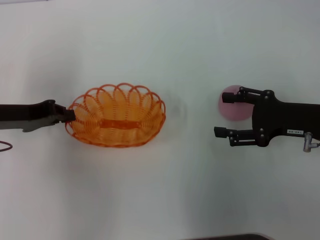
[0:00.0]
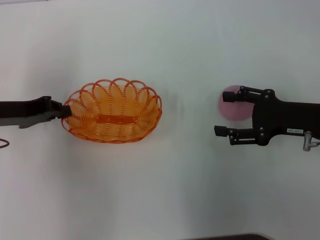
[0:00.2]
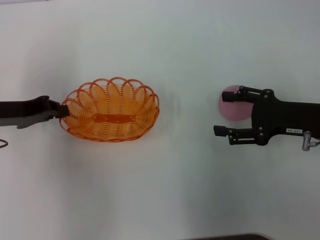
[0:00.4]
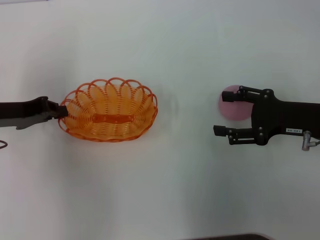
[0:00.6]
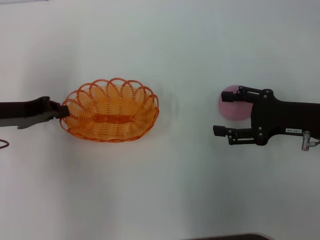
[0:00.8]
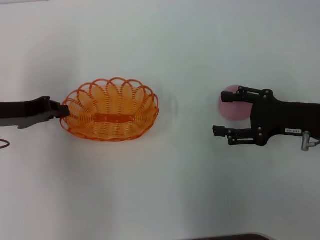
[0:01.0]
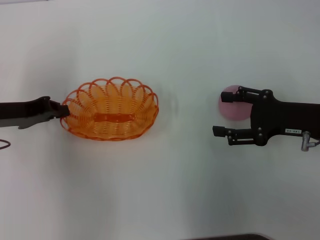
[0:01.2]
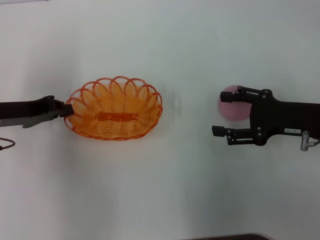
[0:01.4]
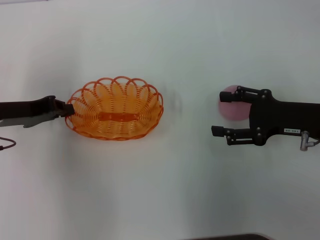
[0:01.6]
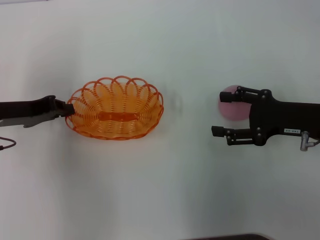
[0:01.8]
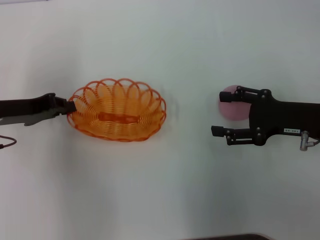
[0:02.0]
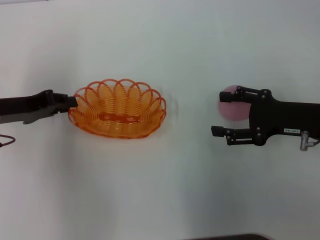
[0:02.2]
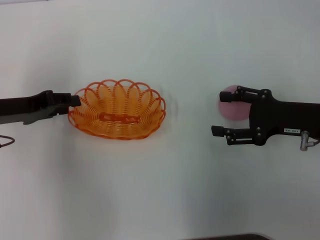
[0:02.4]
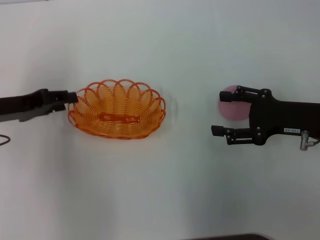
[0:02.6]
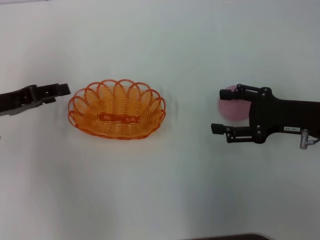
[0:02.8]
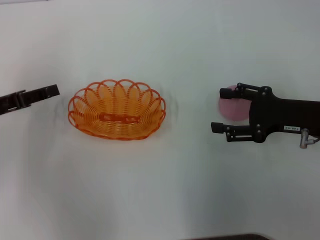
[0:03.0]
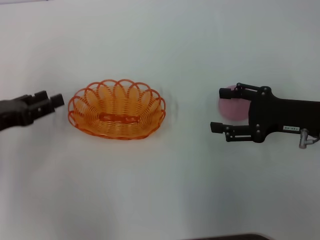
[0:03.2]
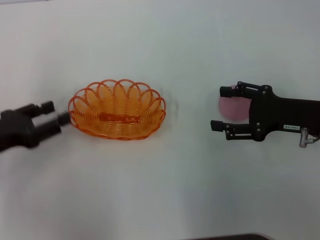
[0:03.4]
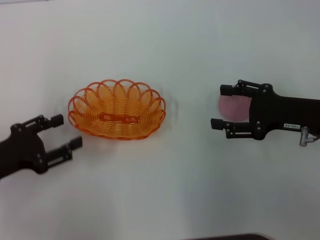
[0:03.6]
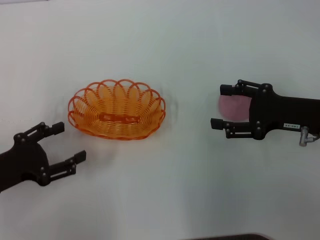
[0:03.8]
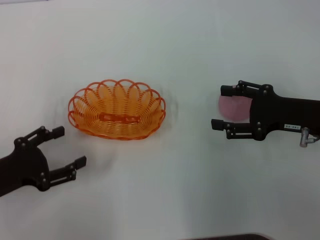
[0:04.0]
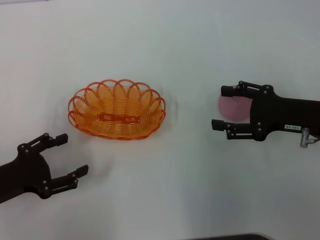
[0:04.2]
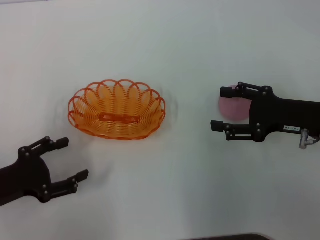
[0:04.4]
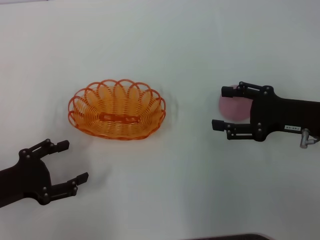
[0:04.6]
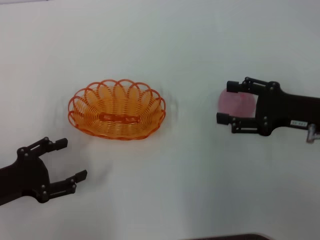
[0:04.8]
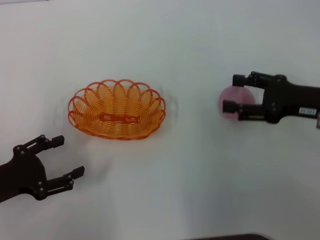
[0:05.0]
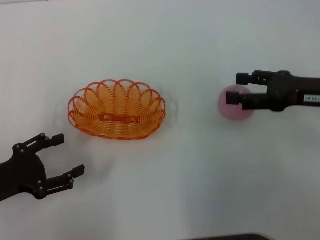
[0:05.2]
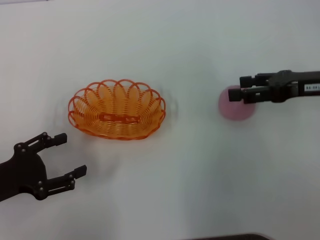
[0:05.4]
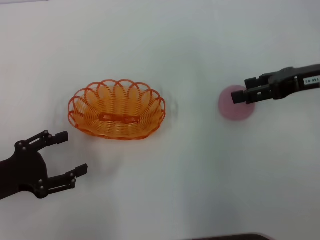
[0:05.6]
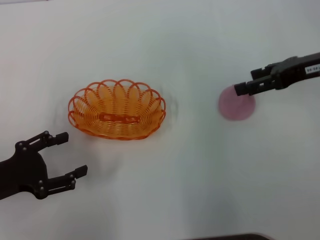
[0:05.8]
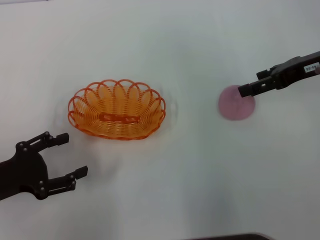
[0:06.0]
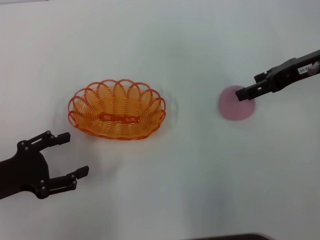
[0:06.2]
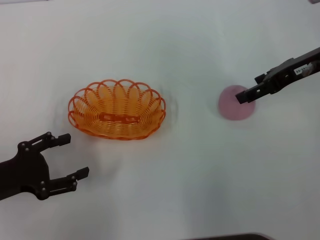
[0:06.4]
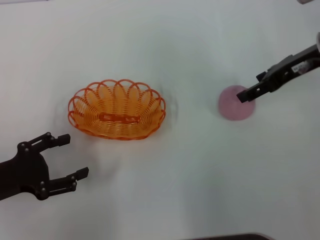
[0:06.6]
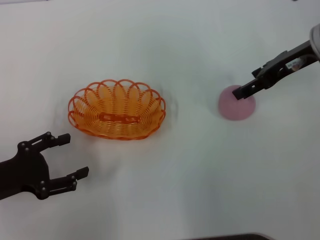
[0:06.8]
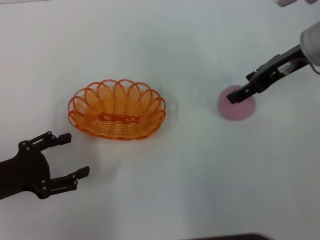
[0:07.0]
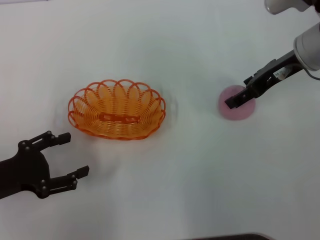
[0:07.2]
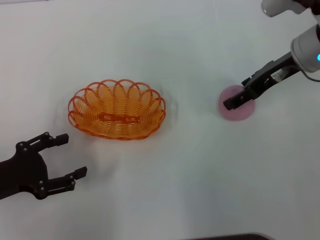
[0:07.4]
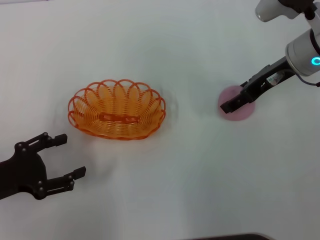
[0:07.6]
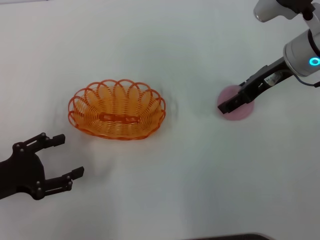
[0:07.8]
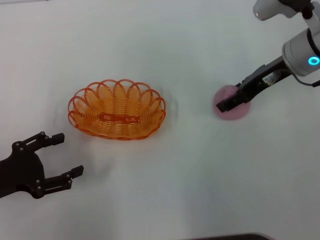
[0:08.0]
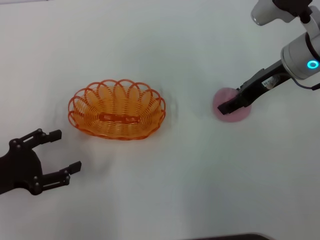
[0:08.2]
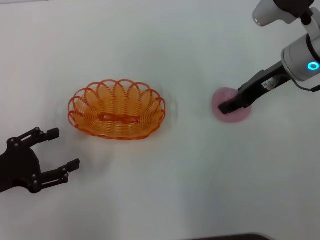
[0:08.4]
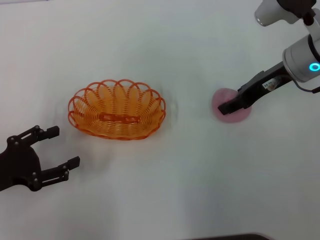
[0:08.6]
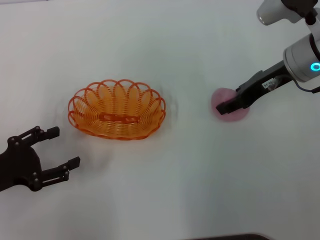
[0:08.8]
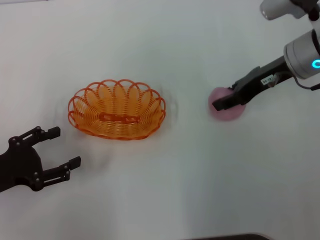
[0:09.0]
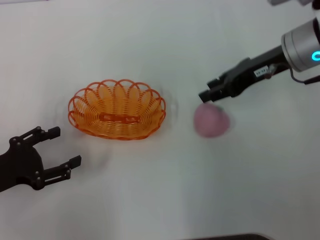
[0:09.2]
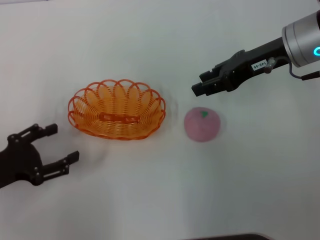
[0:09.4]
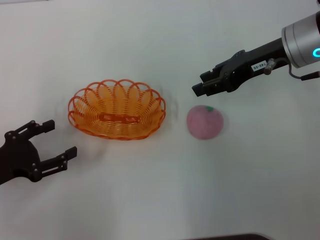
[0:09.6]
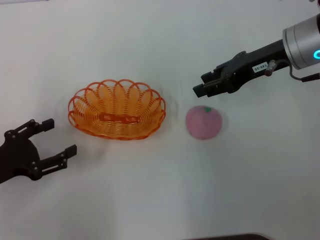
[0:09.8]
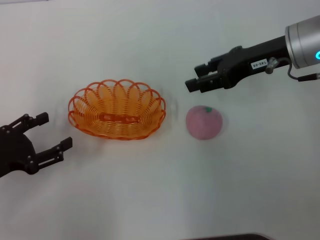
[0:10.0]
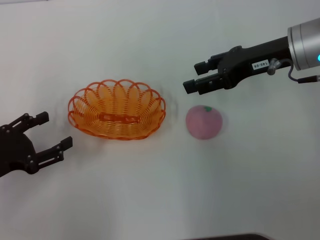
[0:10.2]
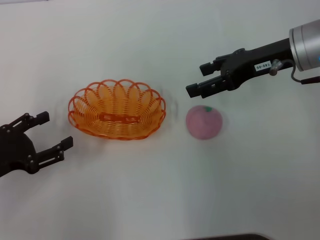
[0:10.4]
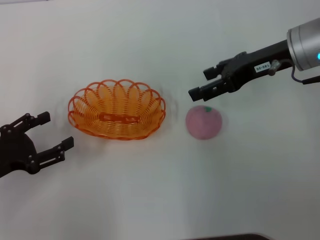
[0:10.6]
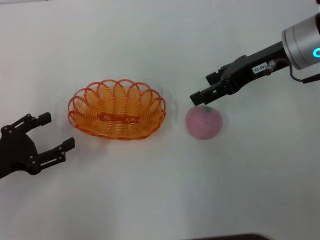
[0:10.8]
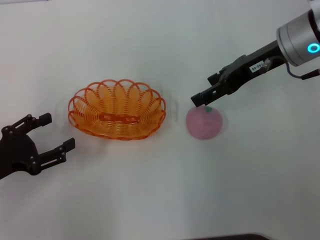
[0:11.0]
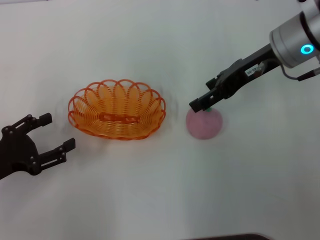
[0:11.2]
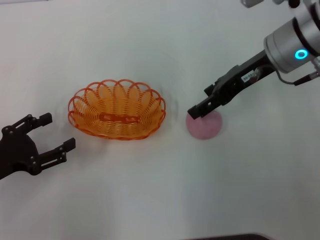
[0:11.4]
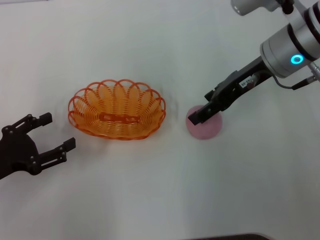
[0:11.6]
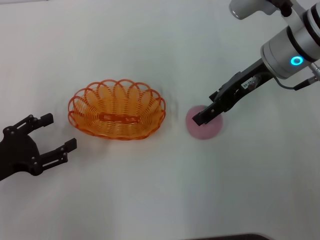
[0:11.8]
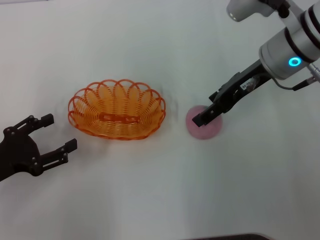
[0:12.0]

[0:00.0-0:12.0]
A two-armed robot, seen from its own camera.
Step, 0:00.0 to 0:02.8: Place the basket in the center of view with the left gripper.
0:00.0 to 0:01.6: The two grippers keep their place.
0:01.6 to 0:03.0: The left gripper opens.
0:03.0 to 0:04.4: The left gripper moves backward and downward, some 10 cm.
0:04.4 to 0:06.0: The right gripper heads upward and forward, covering some 10 cm.
0:06.0 to 0:07.6: The right gripper moves to the left, roughly 5 cm.
0:07.6 to 0:09.0: The right gripper closes.
0:09.0 to 0:10.4: The right gripper opens its fingers.

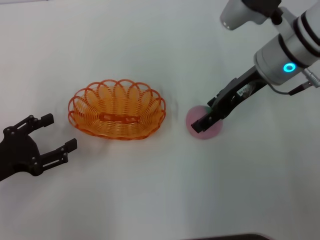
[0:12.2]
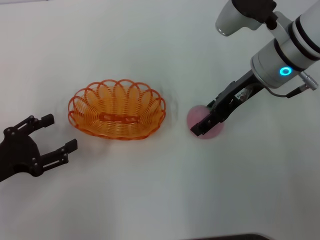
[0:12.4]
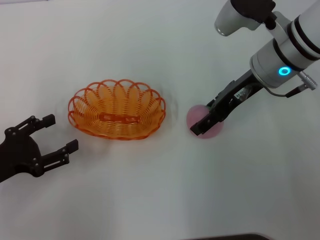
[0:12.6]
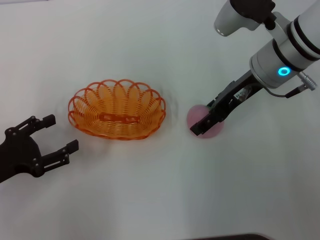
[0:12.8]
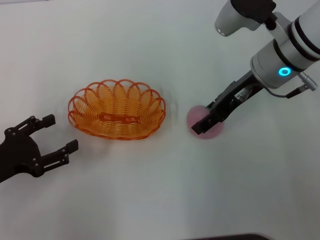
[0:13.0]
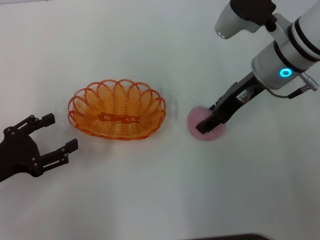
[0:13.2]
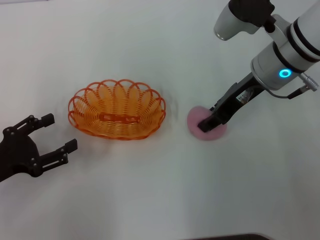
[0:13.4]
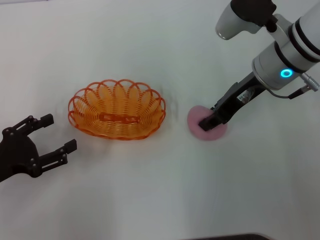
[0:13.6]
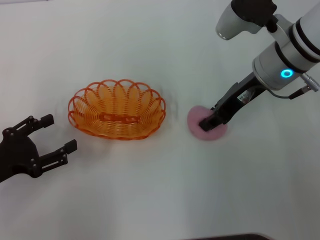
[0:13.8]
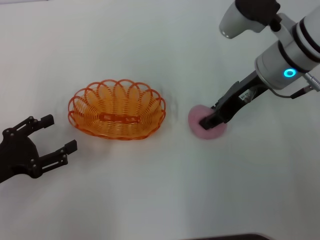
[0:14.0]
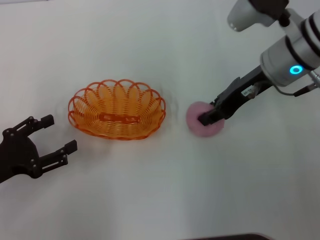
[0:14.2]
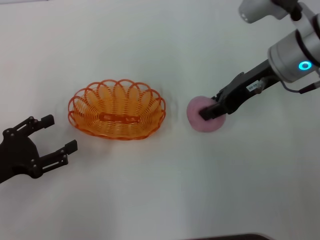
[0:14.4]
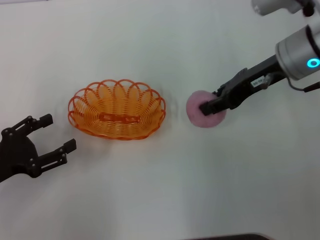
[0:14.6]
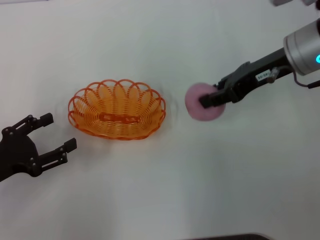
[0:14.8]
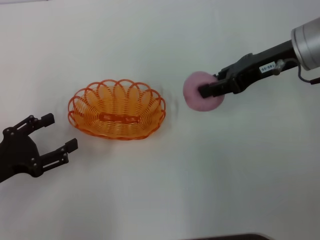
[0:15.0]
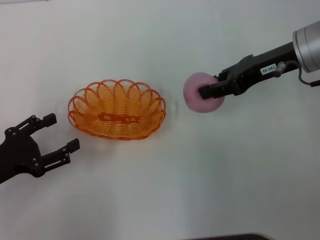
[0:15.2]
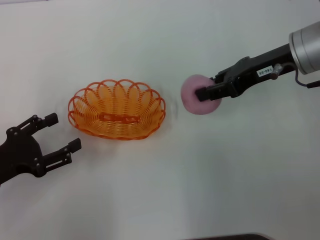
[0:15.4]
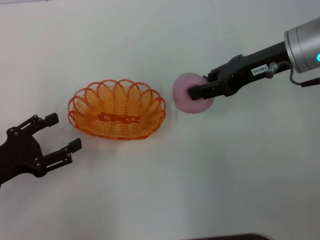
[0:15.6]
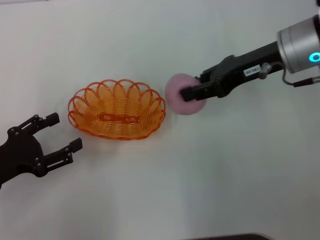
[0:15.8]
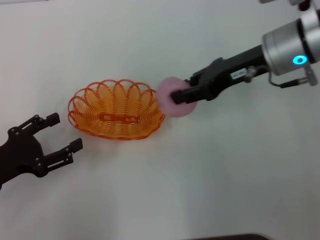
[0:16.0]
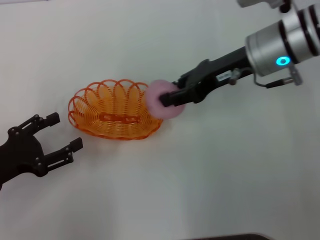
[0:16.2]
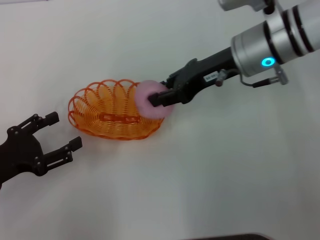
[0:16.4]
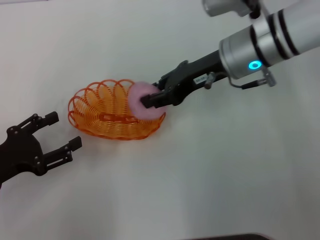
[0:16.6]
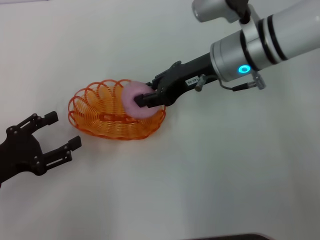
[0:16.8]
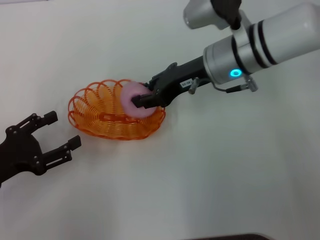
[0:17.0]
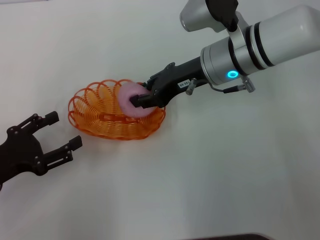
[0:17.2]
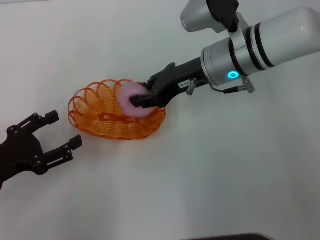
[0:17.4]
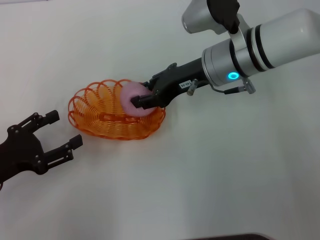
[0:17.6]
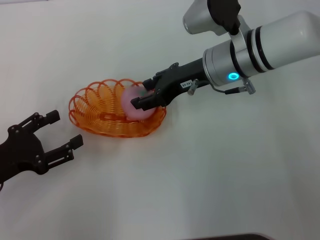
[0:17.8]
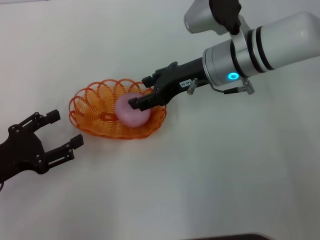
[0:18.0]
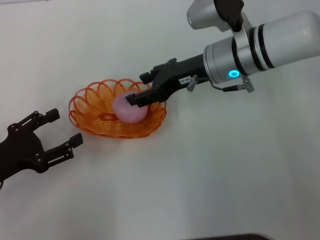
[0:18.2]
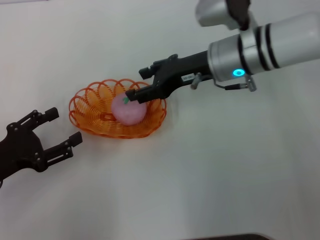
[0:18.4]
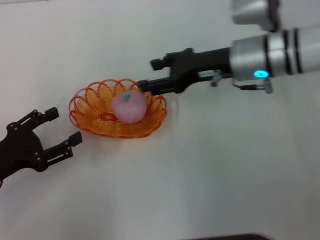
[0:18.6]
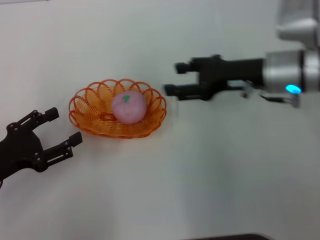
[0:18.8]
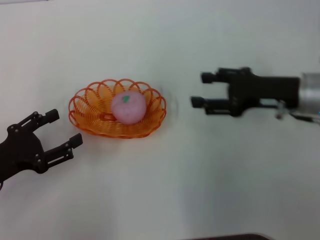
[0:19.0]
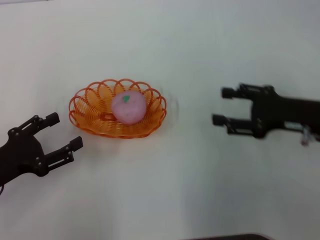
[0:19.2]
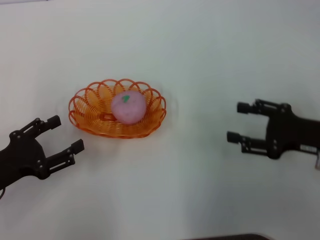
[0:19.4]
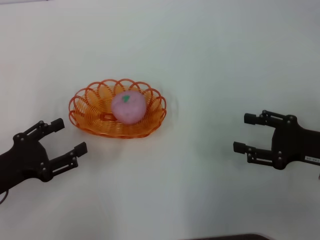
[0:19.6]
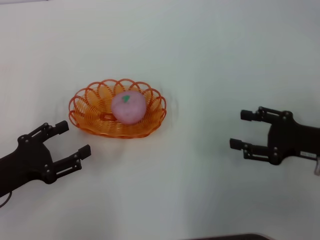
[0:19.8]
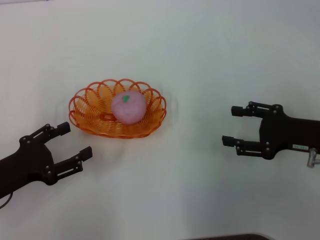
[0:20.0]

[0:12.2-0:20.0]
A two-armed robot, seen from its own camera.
Step, 0:12.2 to 0:15.0: Pick up the peach with the right gripper.
Step, 0:15.2 to 0:18.8: Place the peach into the basket with the right gripper.
0:12.2 to 0:13.8: The right gripper closes.
0:13.8 to 0:15.4: The right gripper ends up roughly 5 cm from where it was.
0:15.4 to 0:16.8: The right gripper travels to the left by approximately 10 cm.
0:16.8 to 0:18.4: The right gripper opens up.
0:18.4 to 0:20.0: The right gripper moves to the right, backward and downward, some 20 cm.

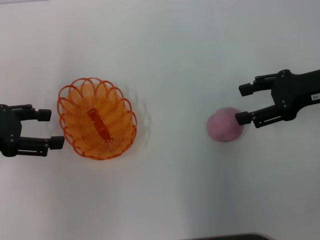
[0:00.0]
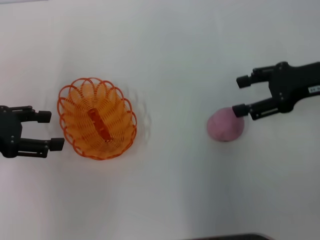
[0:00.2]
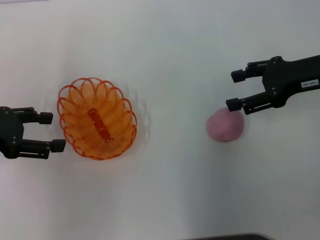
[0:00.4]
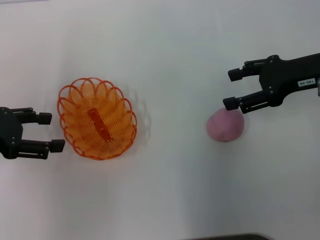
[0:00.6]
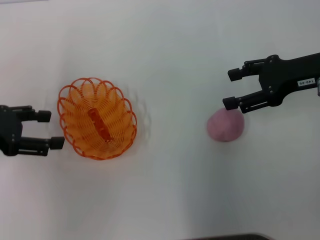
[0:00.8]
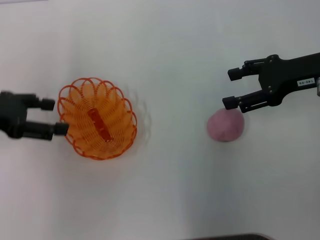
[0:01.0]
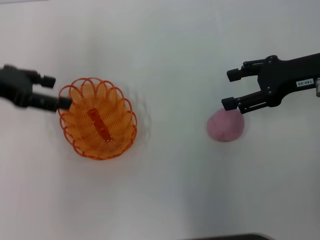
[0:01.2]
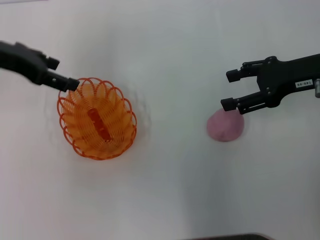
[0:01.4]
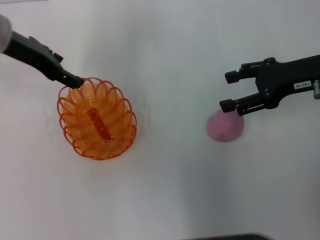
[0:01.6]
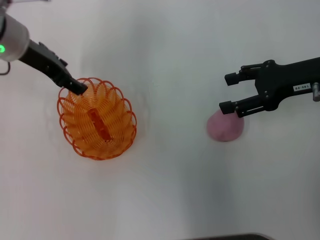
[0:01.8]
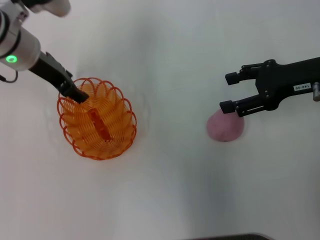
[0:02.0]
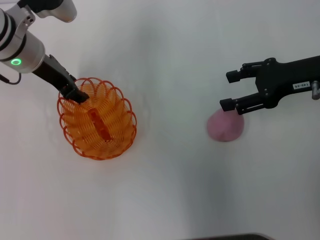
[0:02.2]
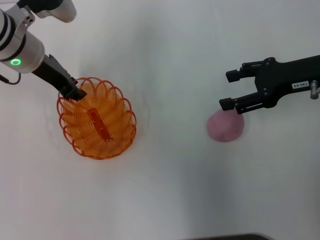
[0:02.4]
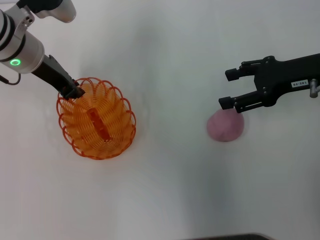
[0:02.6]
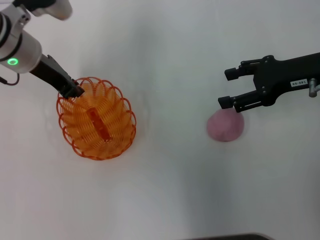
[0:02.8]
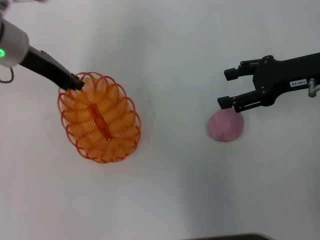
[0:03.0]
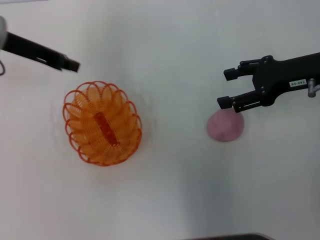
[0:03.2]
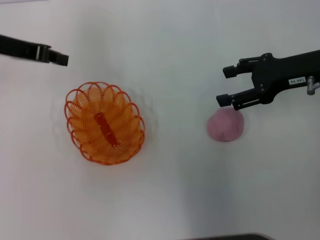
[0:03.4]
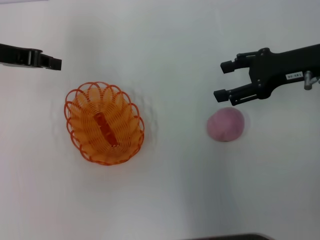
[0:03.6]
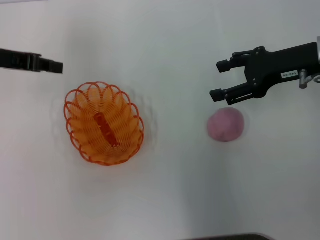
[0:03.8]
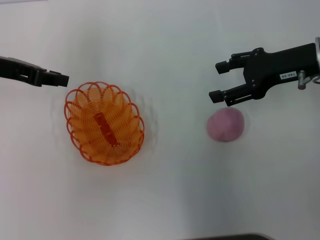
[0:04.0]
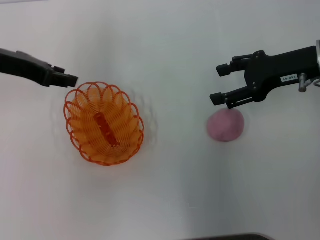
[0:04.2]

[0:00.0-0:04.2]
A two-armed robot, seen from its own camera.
Step, 0:00.0 to 0:02.8: Pick up the basket with the left gripper.
0:00.0 to 0:01.4: The left gripper shifts approximately 15 cm forward, to the right and upward.
0:01.4 to 0:02.8: The left gripper shifts about 5 cm to the right, and closes up.
0:02.8 to 0:04.2: The left gripper is displaced to the left by some 5 cm.
